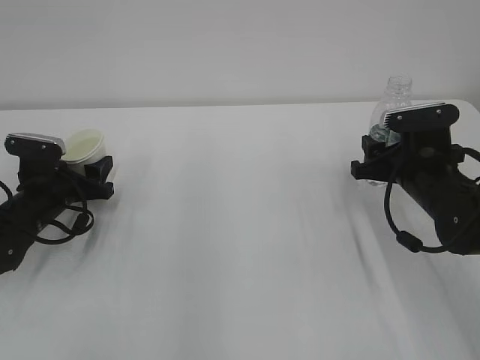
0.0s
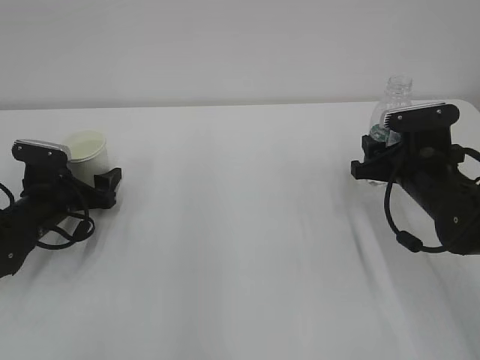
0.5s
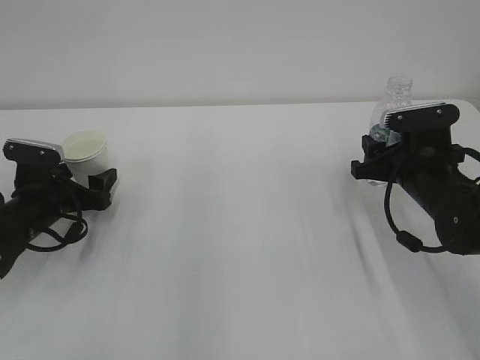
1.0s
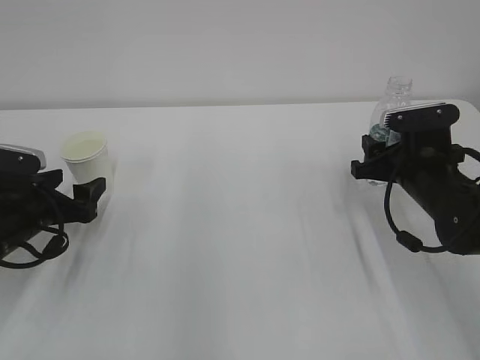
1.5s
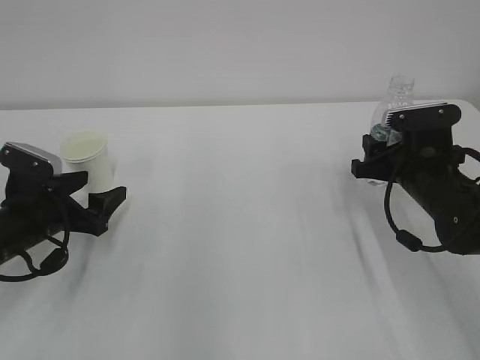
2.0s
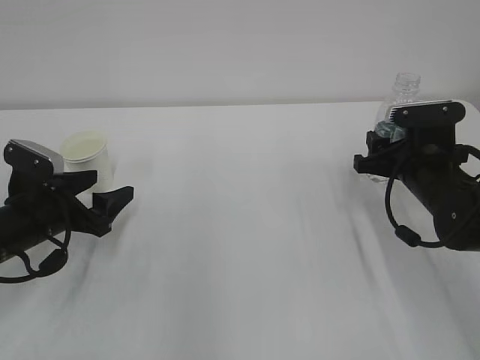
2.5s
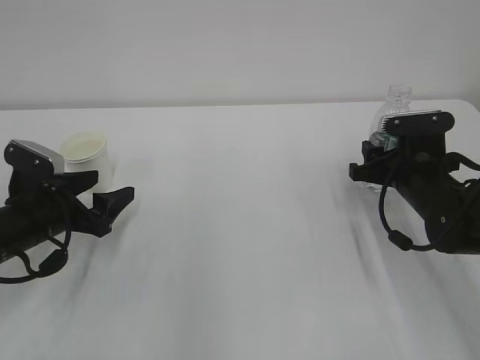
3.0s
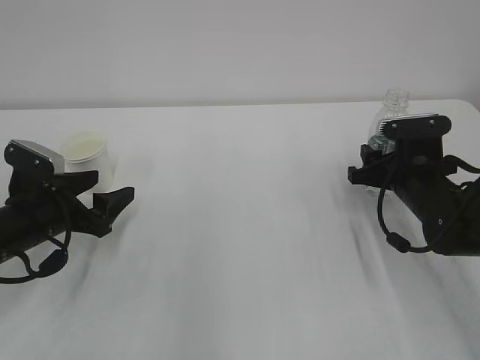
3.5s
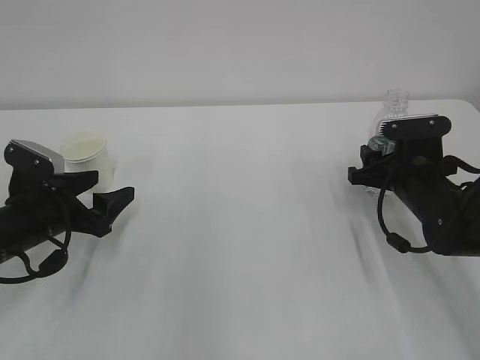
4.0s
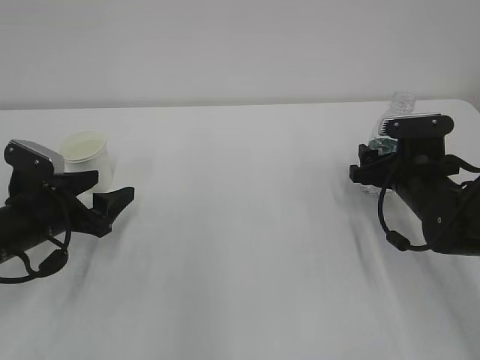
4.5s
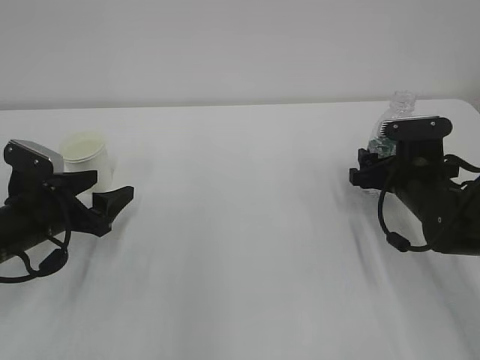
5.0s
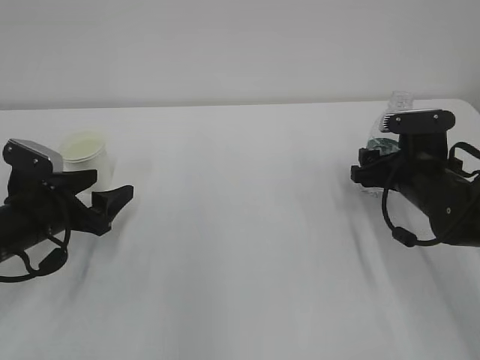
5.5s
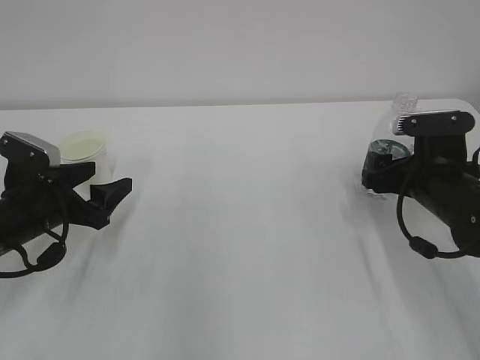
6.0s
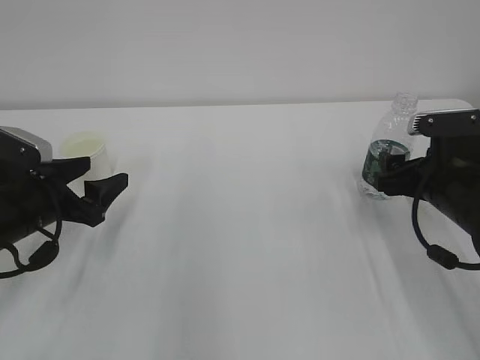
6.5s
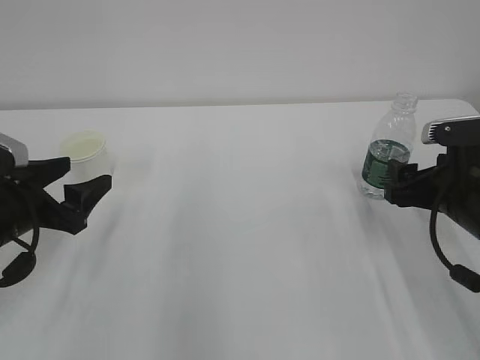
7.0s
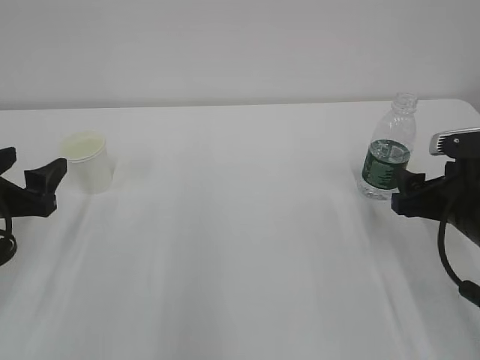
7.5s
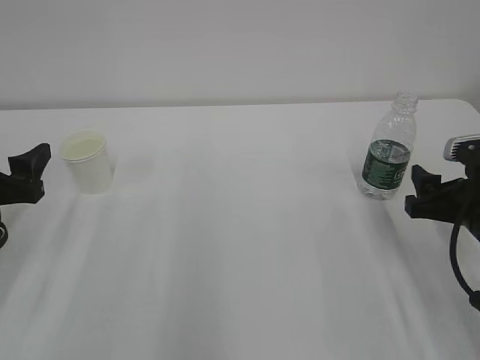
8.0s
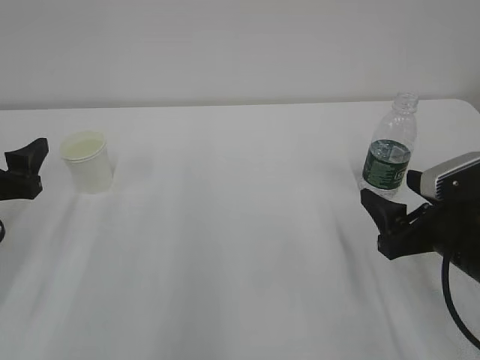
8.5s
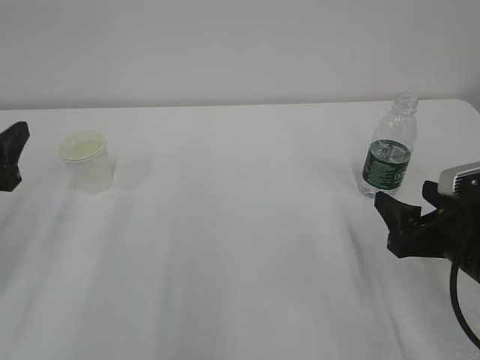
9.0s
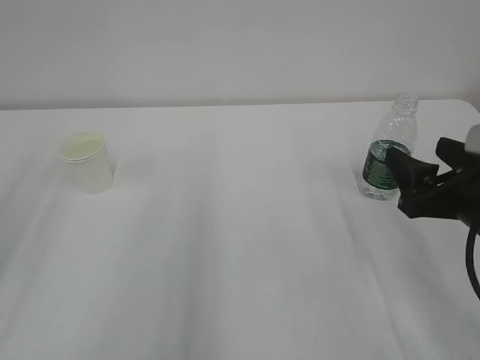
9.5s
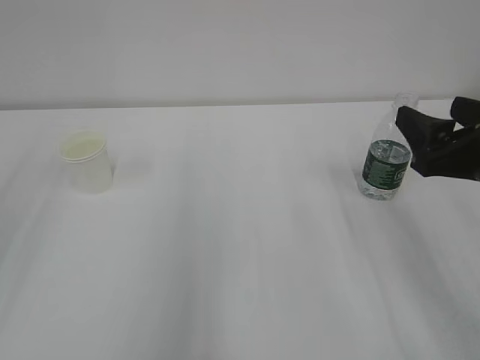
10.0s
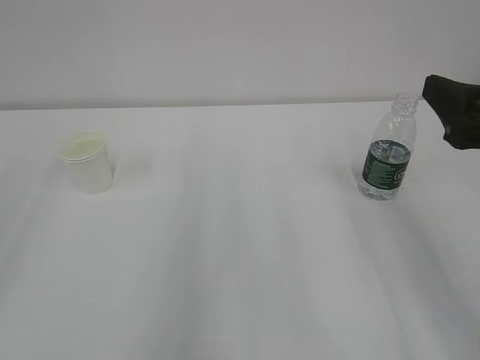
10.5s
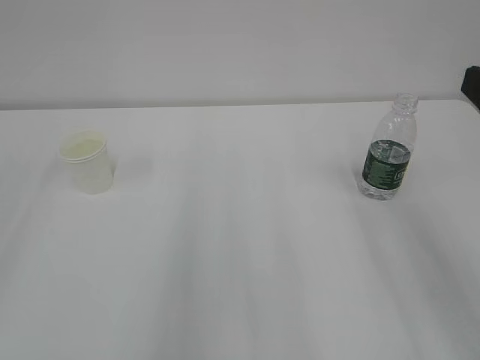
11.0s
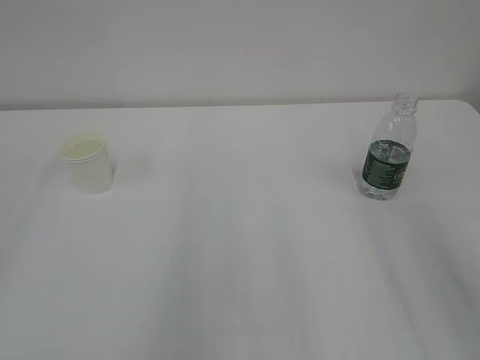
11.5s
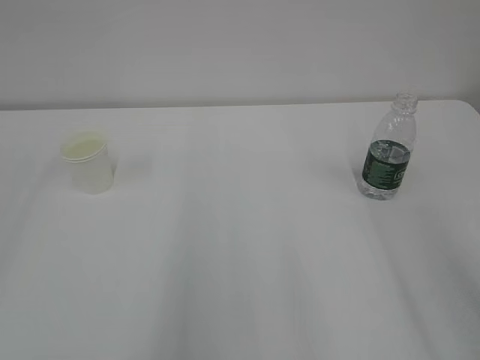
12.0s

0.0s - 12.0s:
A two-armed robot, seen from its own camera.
0.0s - 2.0s: The left gripper shifts about 5 cm backward, and opens.
2.0s - 4.0s: There are only small adjustments of the grippers.
4.0s - 6.0s: The right gripper opens its fingers.
6.0s - 8.0s: The right gripper goes some 5 cm backward; the left gripper heads upward, covering roughly 5 cm.
8.0s - 10.0s: The left gripper shifts roughly 15 cm upward and backward, while the right gripper goes approximately 10 cm upward.
10.0s - 12.0s: The right gripper is displaced backward and upward by some 15 cm.

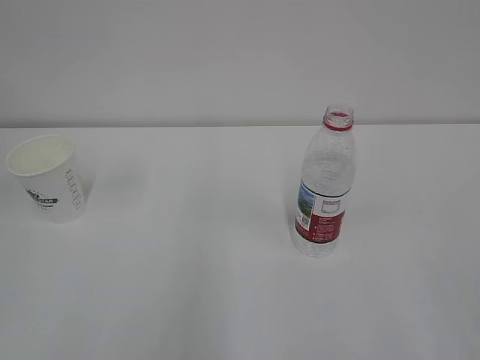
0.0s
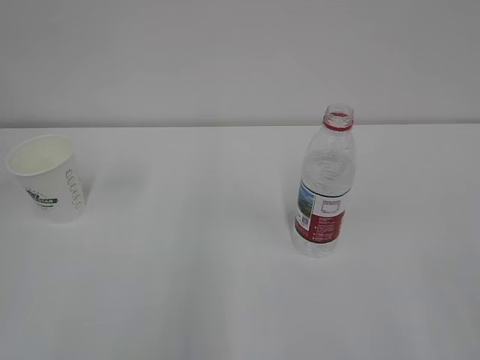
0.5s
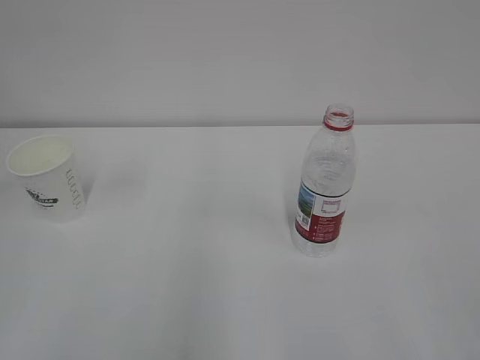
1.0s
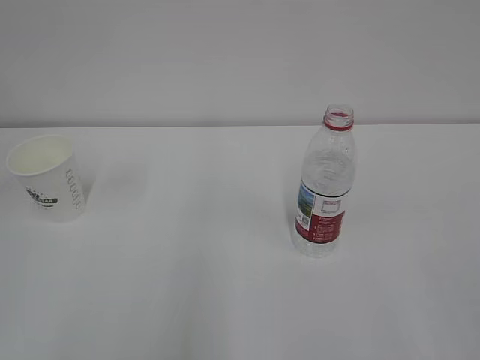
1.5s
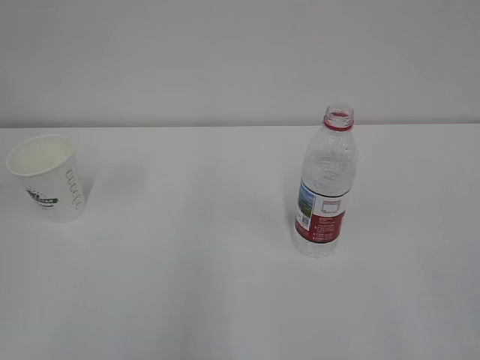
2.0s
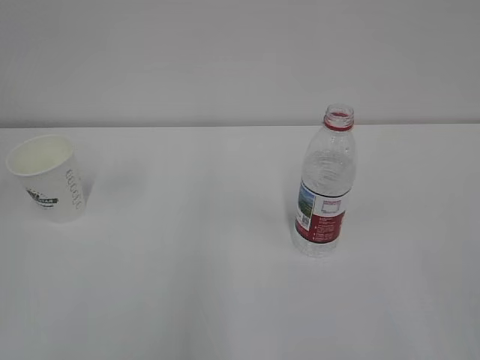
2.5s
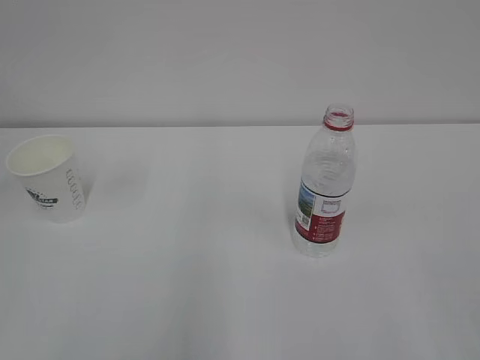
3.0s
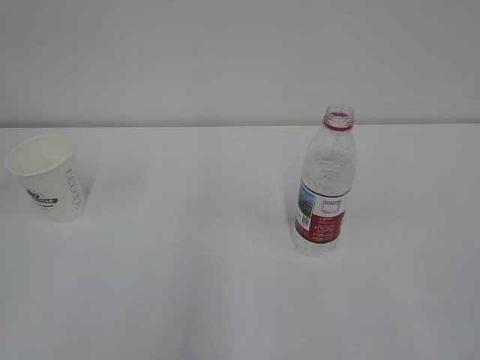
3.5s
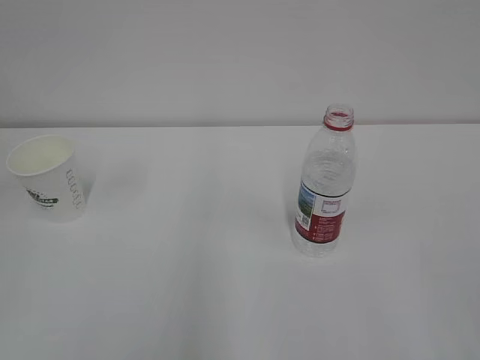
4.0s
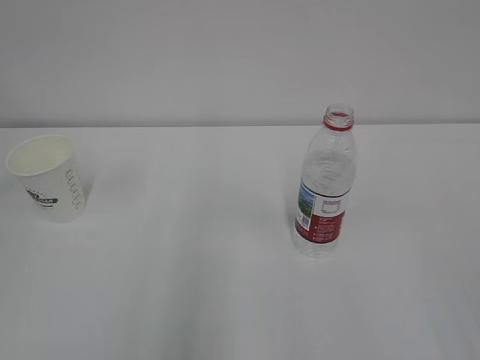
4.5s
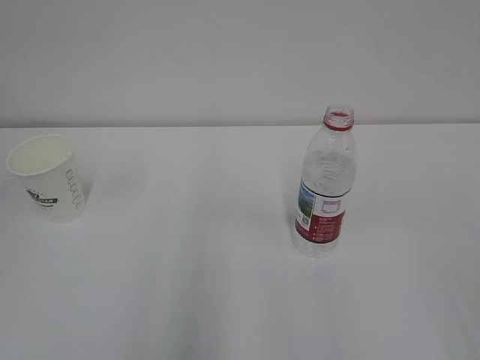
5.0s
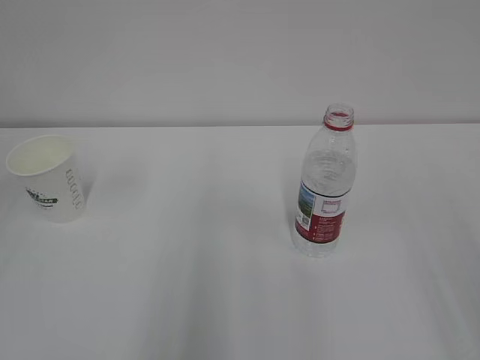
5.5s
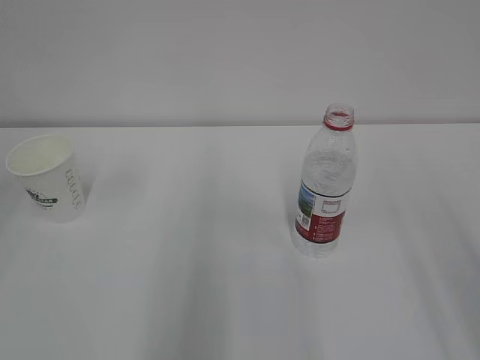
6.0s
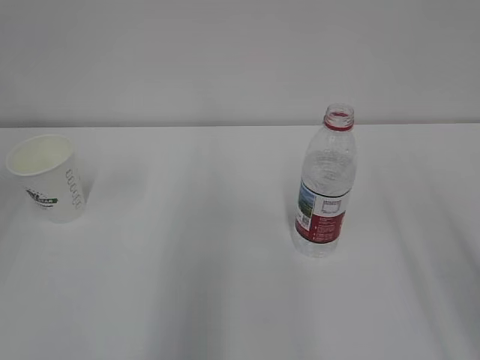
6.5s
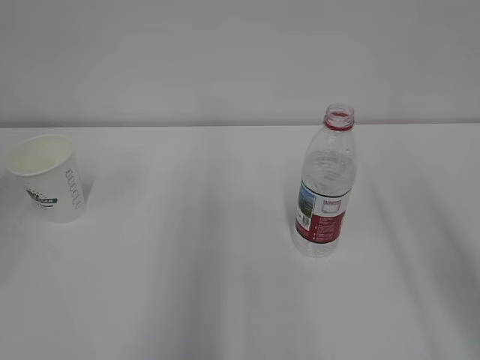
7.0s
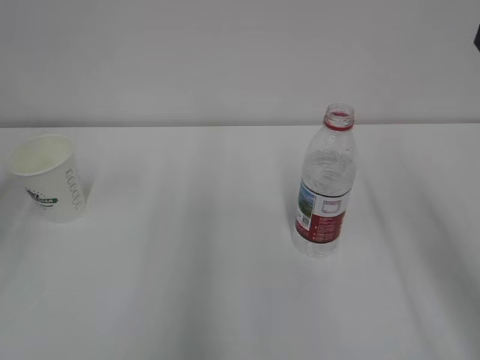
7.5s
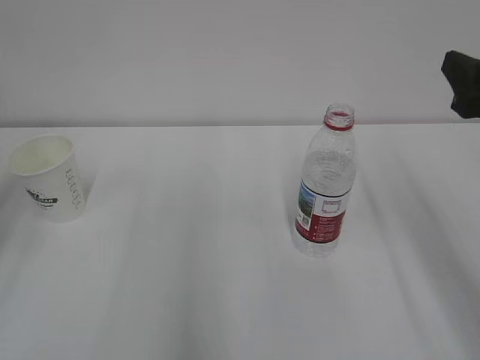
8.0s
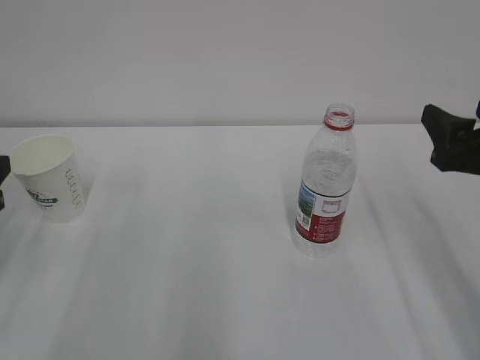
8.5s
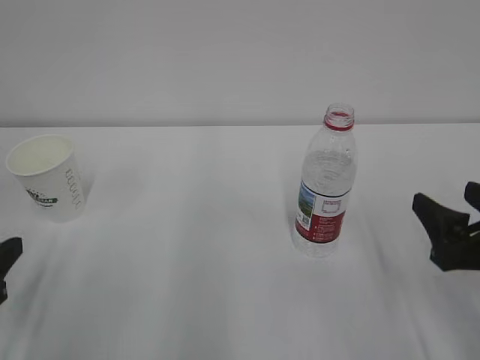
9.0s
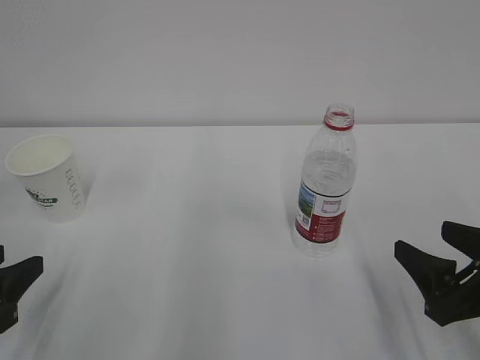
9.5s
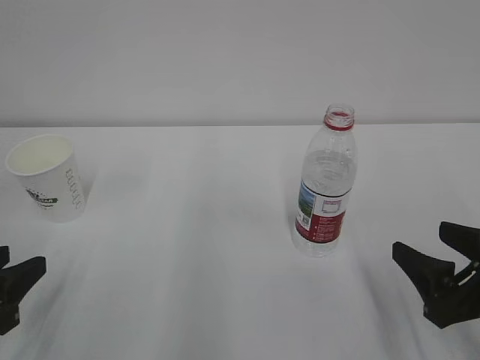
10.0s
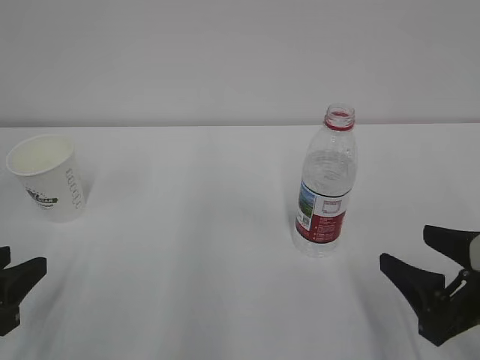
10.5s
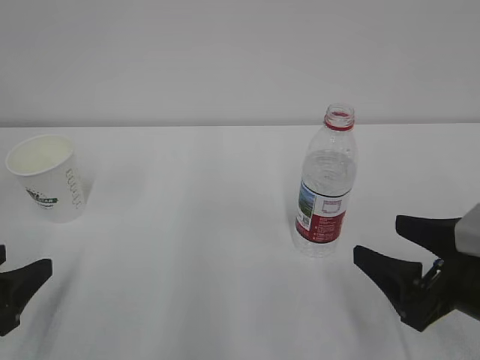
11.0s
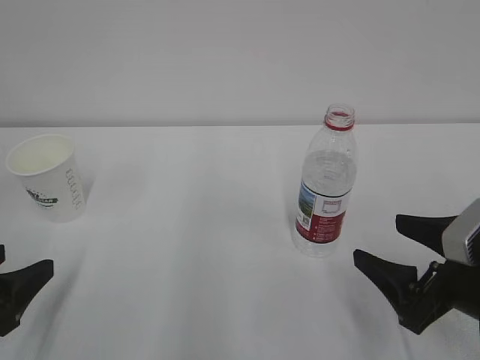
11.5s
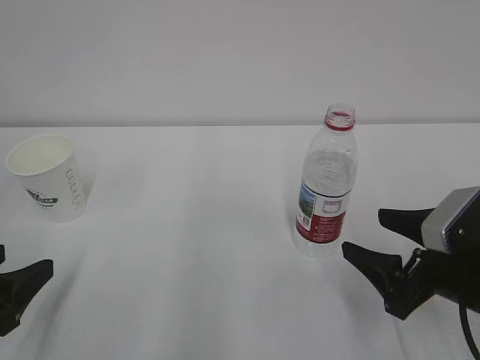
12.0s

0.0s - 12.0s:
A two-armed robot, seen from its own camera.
6.0s - 8.0s: The right gripper shifts roughly 15 cm forward and downward.
8.0s - 10.0s: The two grippers go approximately 15 cm downward and backward.
10.0s - 12.0s: The right gripper opens, then closes once more. The left gripper opens up.

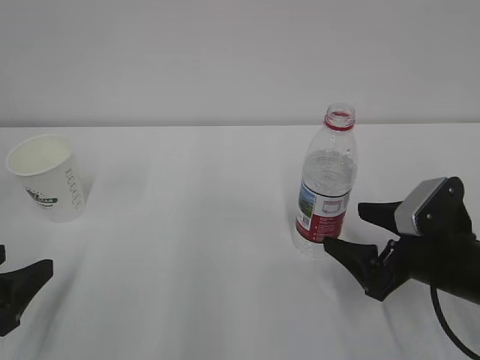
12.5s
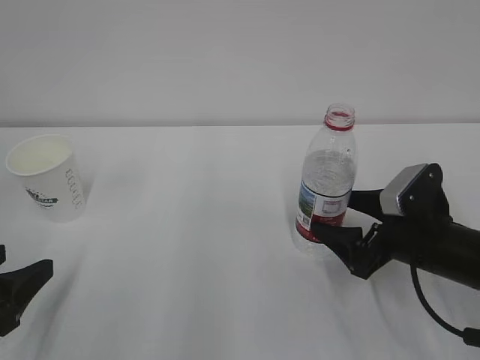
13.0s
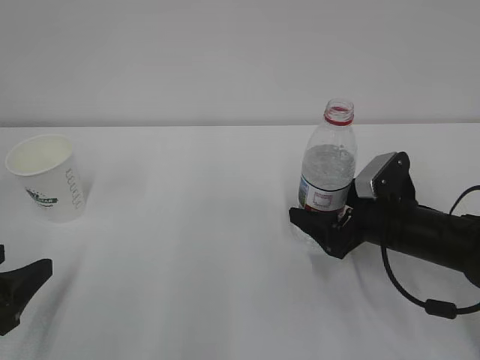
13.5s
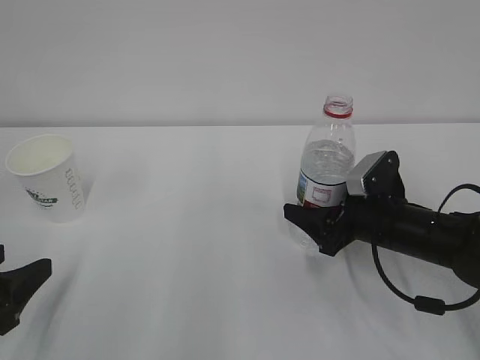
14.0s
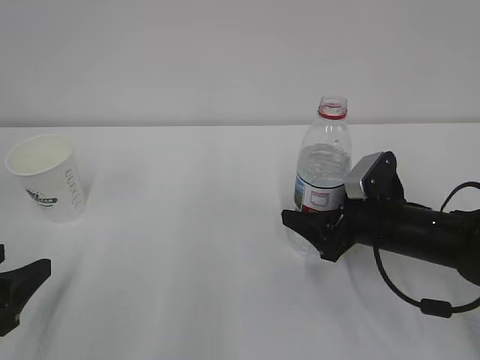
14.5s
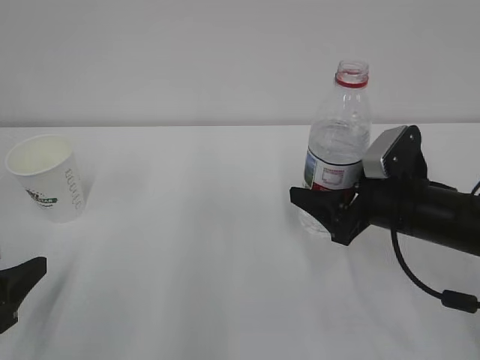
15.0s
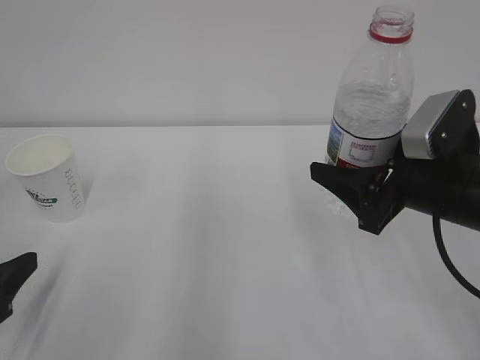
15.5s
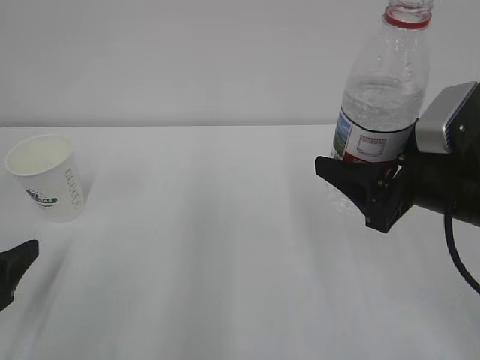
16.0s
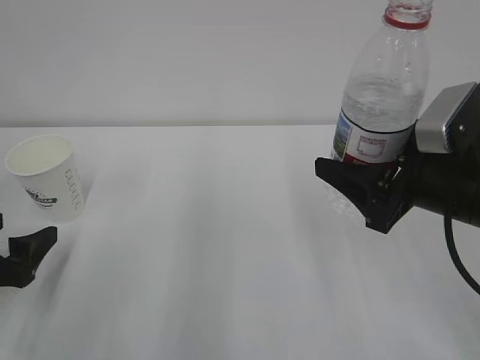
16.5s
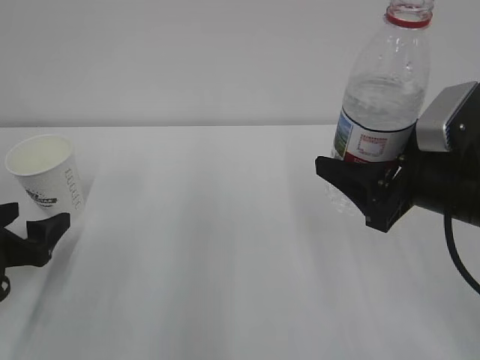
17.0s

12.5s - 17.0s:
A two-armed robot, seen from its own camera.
12.5s - 14.5s: The right gripper goes approximately 5 cm forward, and closes its fingers.
14.5s - 17.0s: The left gripper travels forward by some 10 cm, and opens. The right gripper shifts roughly 15 cm upward and backward.
